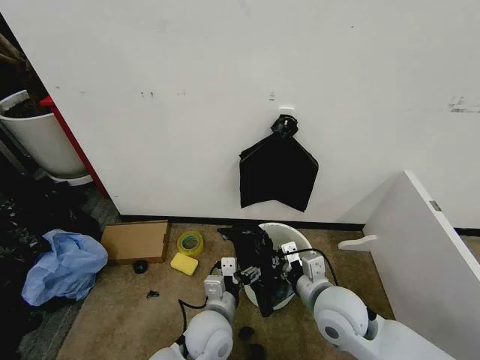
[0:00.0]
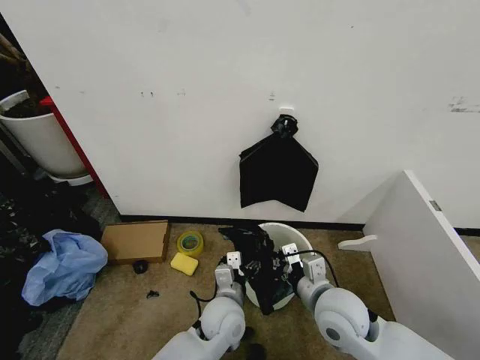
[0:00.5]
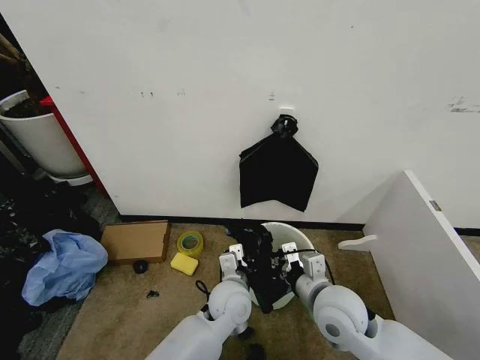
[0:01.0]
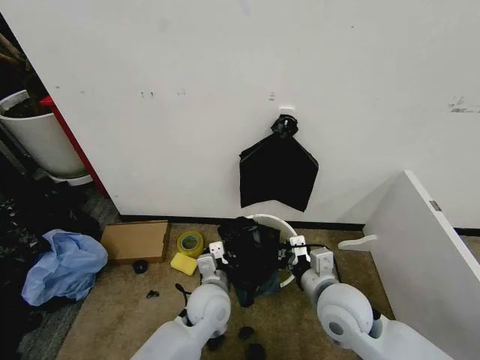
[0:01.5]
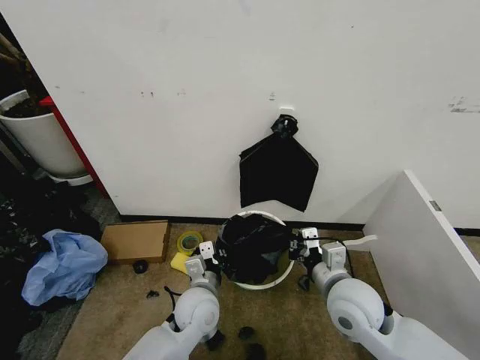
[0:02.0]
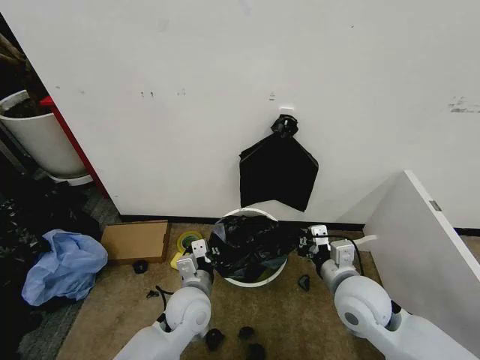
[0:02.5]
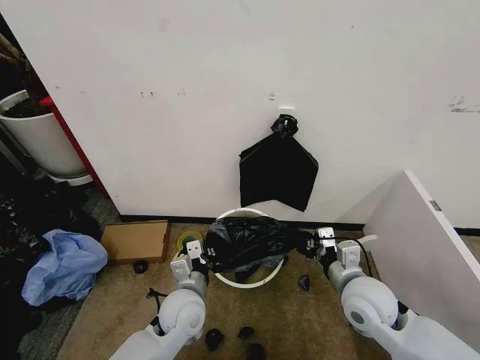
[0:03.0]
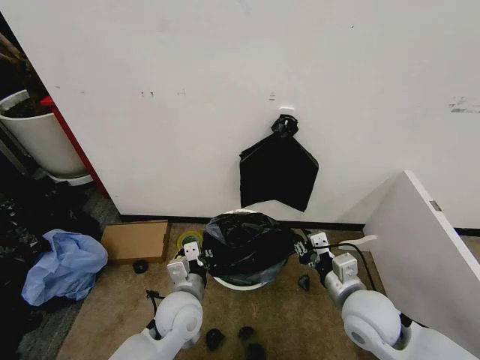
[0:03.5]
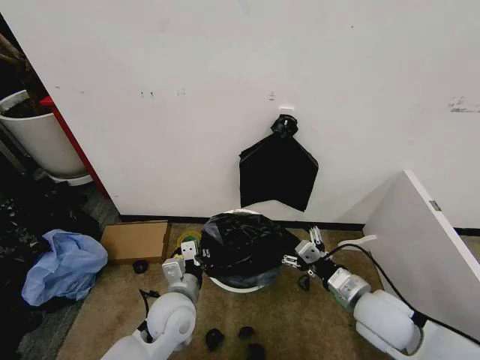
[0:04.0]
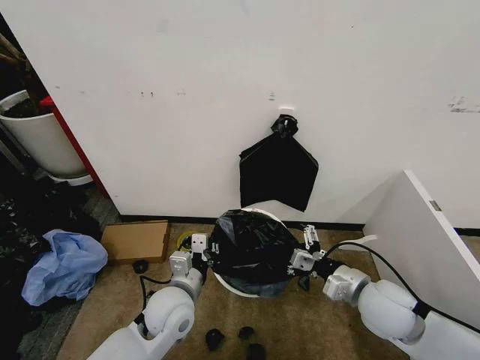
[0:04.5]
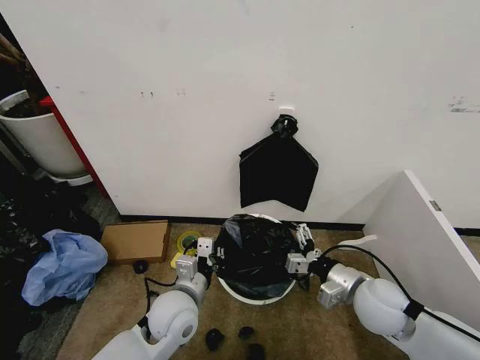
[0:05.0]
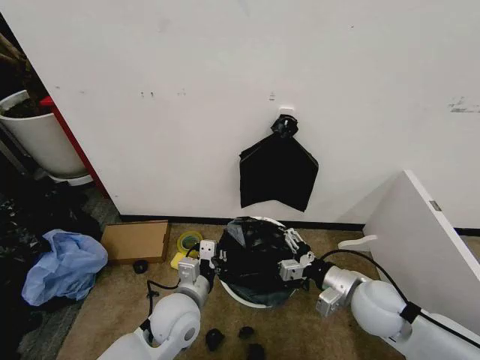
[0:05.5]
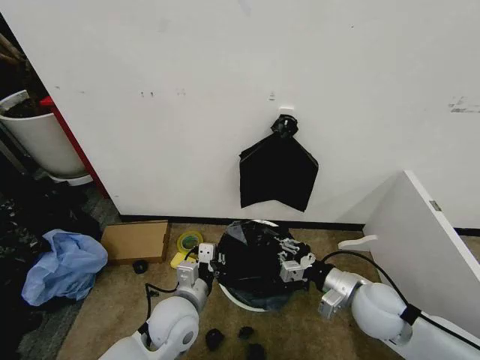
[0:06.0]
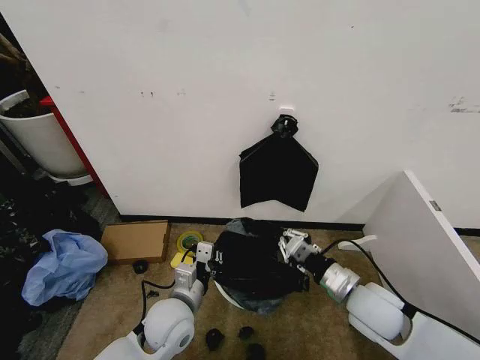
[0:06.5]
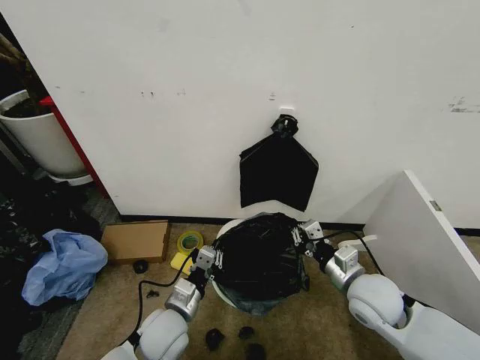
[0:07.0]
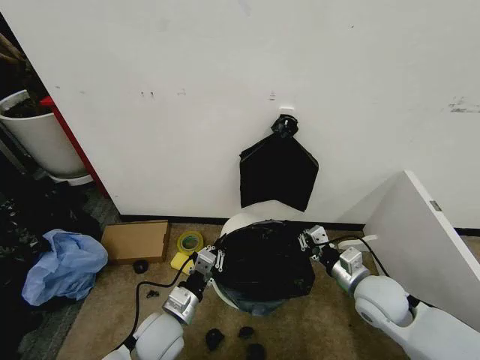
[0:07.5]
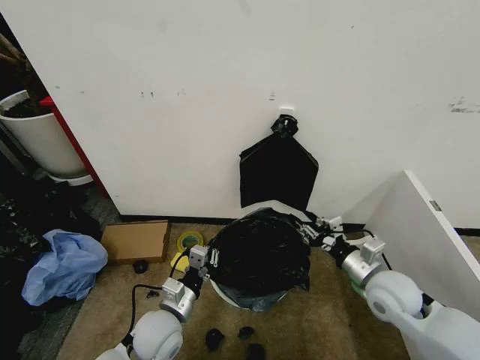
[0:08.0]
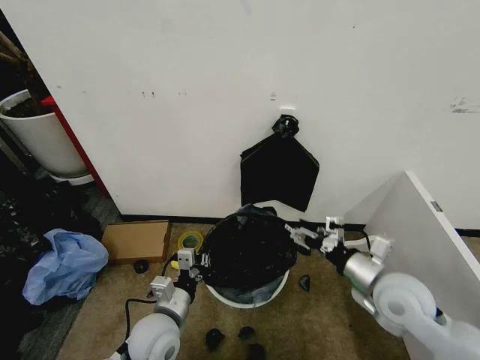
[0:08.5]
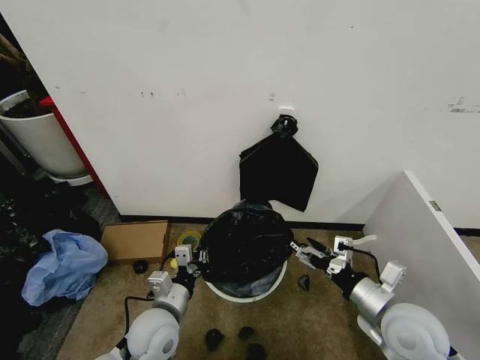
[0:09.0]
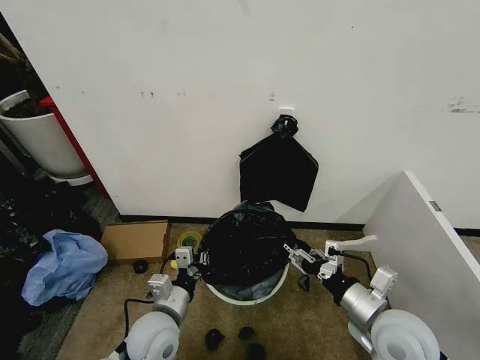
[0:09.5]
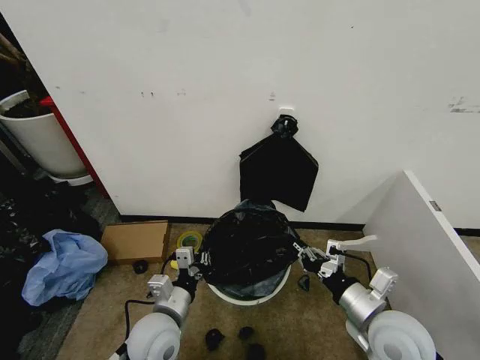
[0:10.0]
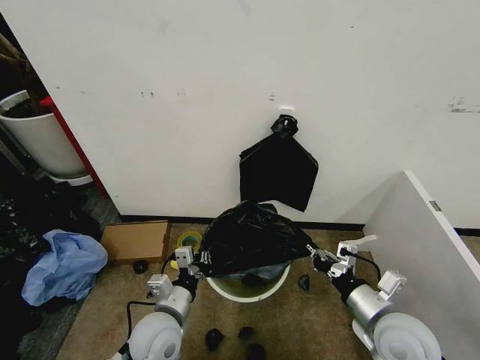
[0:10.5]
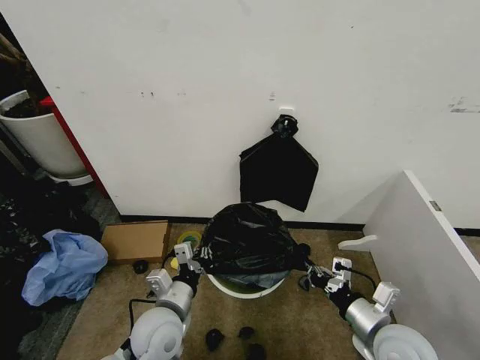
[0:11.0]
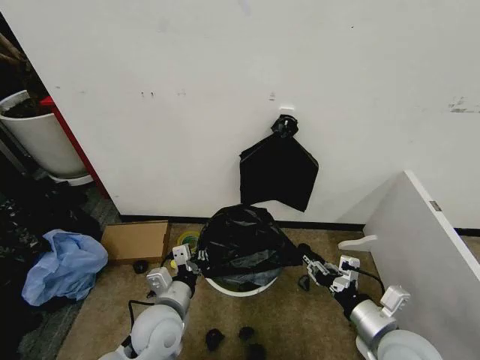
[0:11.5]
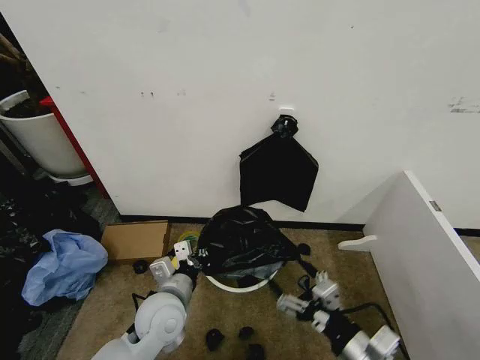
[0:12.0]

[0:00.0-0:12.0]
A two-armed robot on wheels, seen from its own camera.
Task of the whole recording: Place the garbage bag over the trash bin.
0:00.0 to 0:02.0: The left gripper moves approximately 5 cm, and closes its fingers.
0:02.0 to 0:04.0: The right gripper heads to the right, covering about 5 cm, and opens its fingers. The left gripper moves about 5 cm.
0:04.0 to 0:06.0: The right gripper closes up.
0:06.0 to 0:08.0: The left gripper changes place by some 5 cm.
0:08.0 to 0:10.0: The right gripper moves backward, about 10 cm, and closes up.
0:10.0 to 0:12.0: The right gripper goes about 10 cm backward, and opens its fingers.

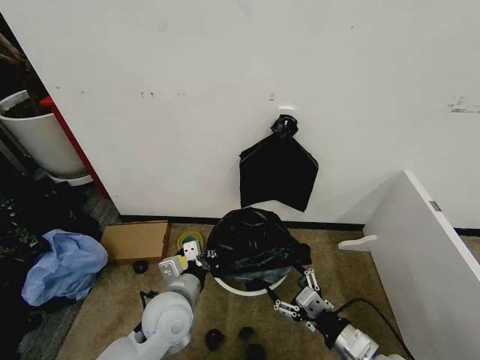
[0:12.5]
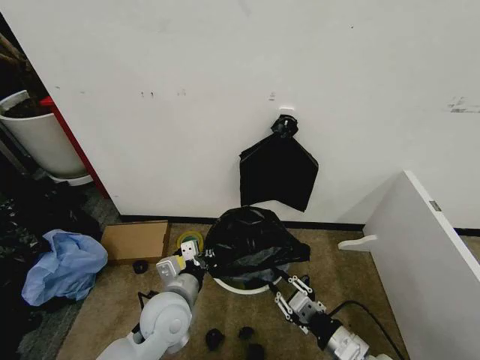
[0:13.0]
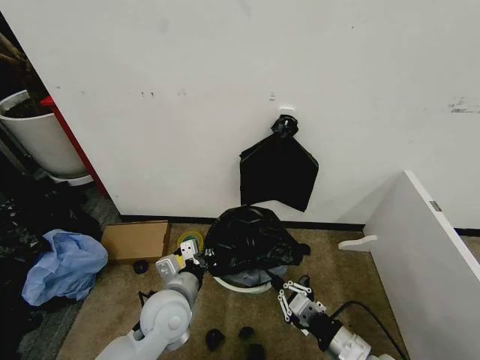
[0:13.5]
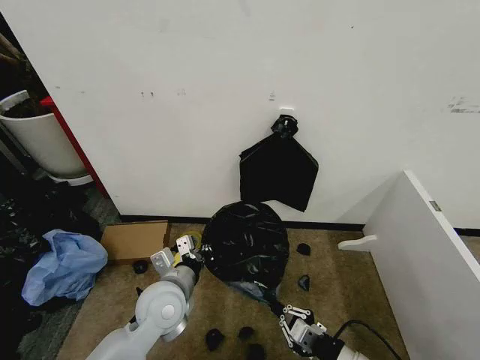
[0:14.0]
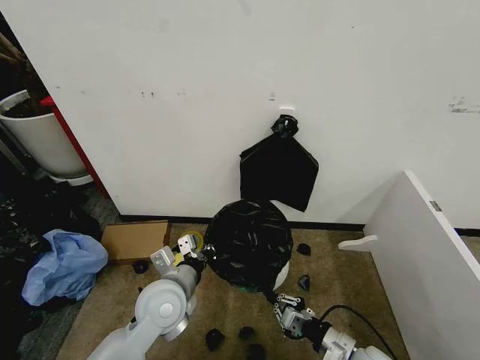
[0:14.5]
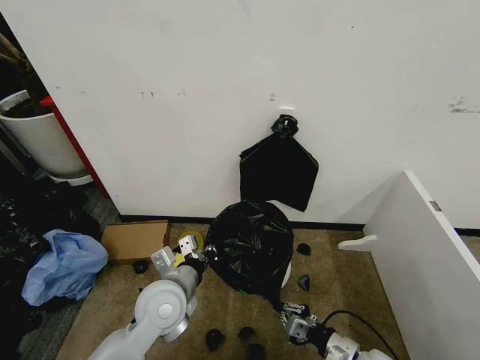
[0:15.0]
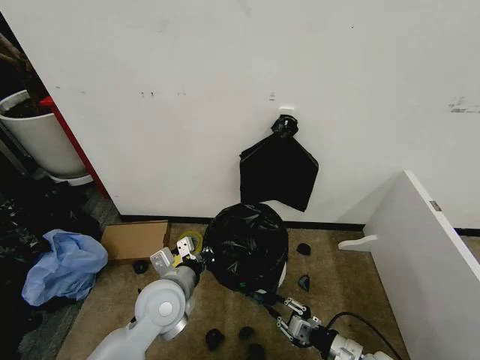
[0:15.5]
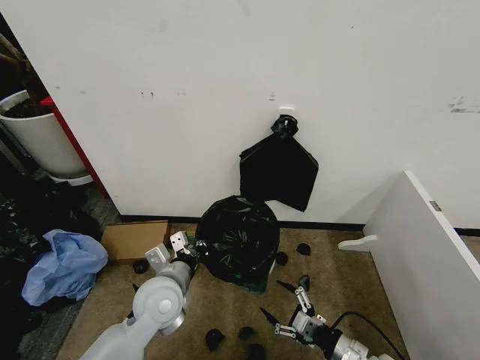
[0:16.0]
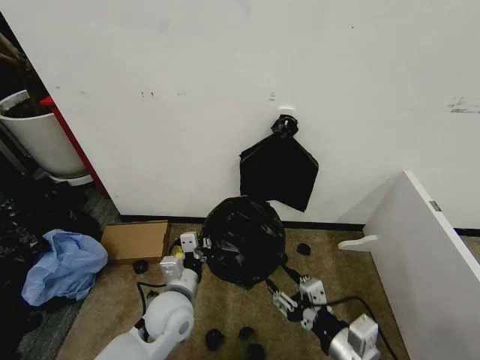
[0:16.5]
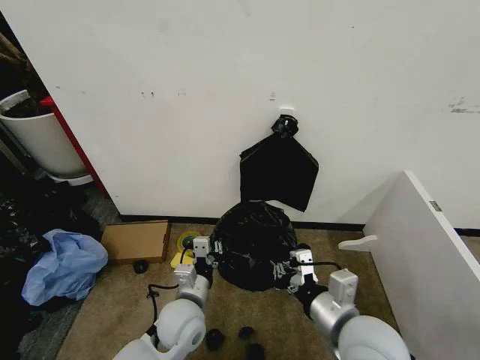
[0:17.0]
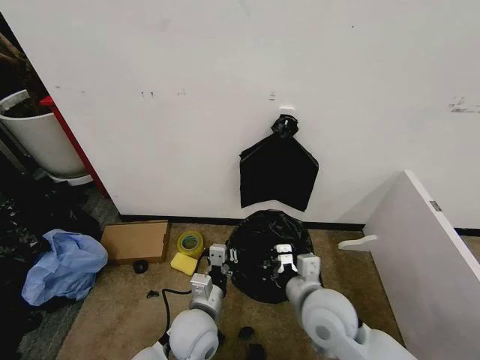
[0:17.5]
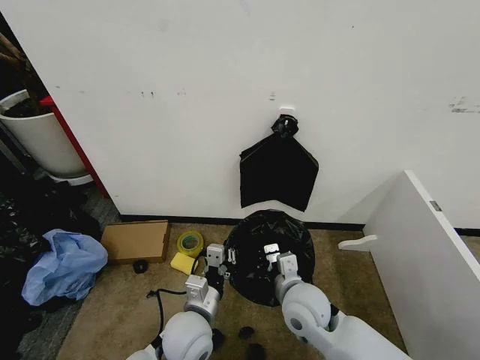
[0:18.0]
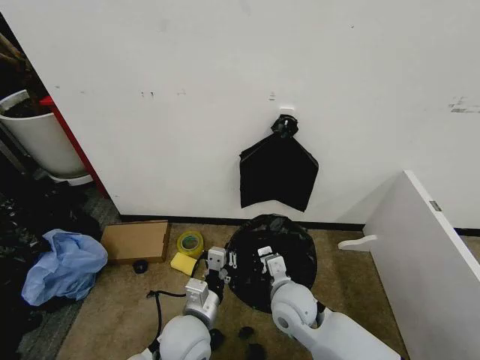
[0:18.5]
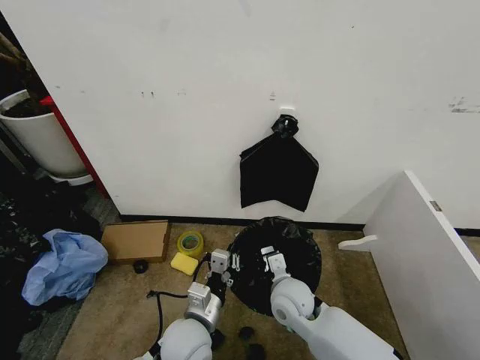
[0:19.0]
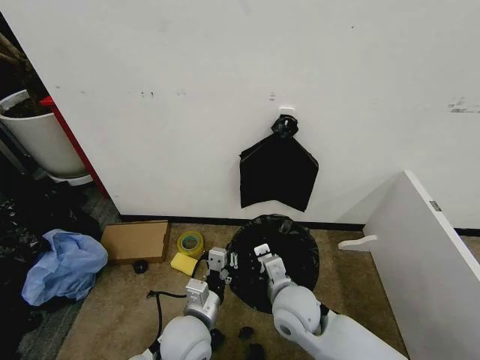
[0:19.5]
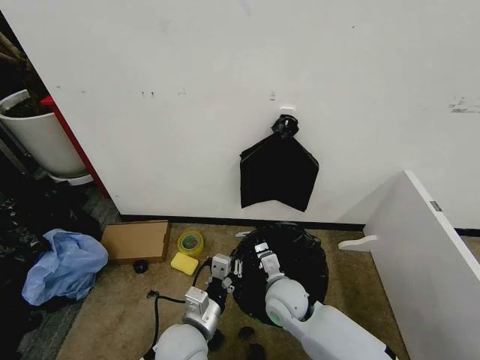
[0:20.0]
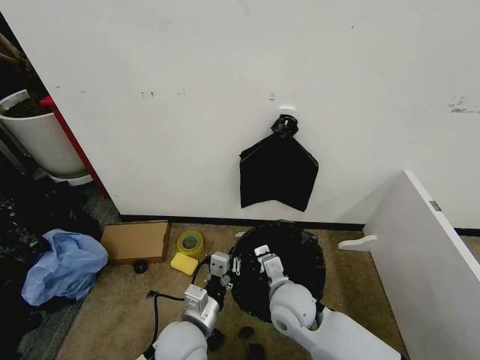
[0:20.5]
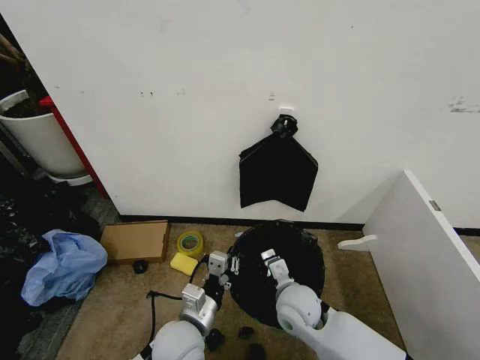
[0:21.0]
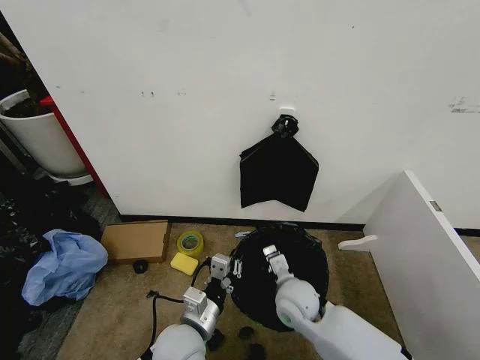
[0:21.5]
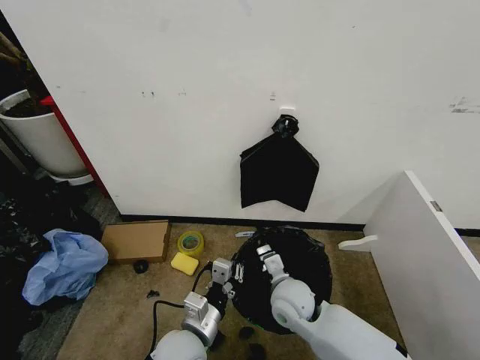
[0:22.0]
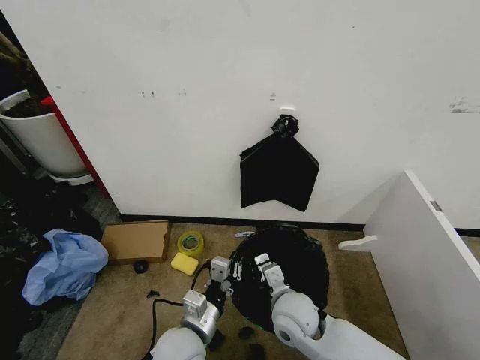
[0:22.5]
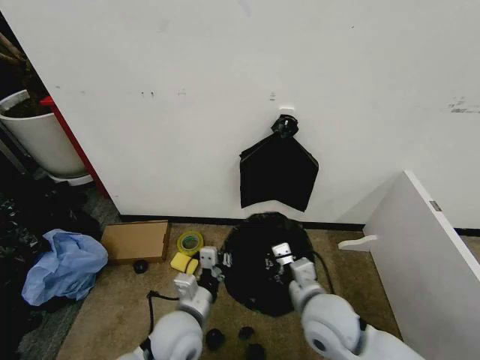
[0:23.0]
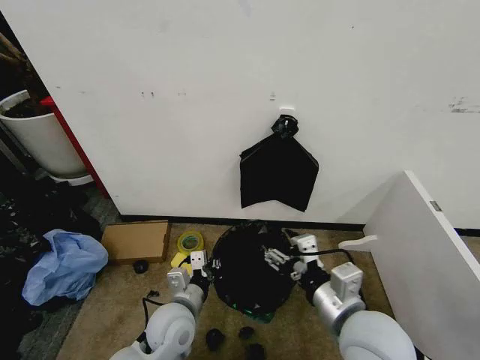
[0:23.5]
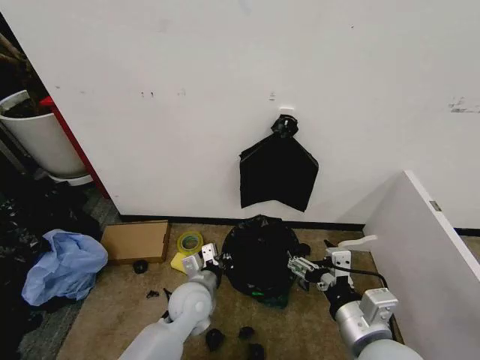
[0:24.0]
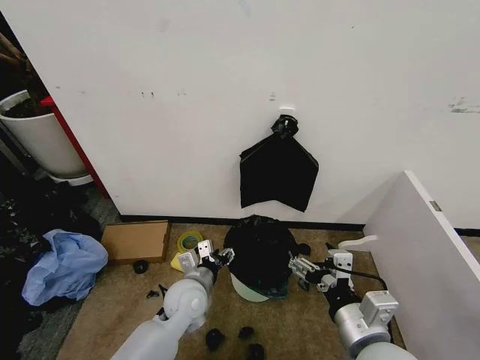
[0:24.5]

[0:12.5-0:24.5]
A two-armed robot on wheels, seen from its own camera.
Task of the whole recording: Place the garbage bag over the trash bin.
0:12.5 to 0:14.5: The right gripper shifts approximately 10 cm downward, and closes.
0:14.5 to 0:16.5: The left gripper heads downward, covering about 5 cm. The right gripper travels upward by approximately 15 cm, and opens.
0:16.5 to 0:18.5: The left gripper moves approximately 5 cm. The right gripper heads forward, to the left and downward, covering some 20 cm, and closes.
0:18.5 to 0:22.5: The grippers make only small movements.
0:22.5 to 0:24.5: The right gripper shifts roughly 20 cm backward, upward and to the right, and opens; the left gripper is displaced forward by some 10 cm, and opens.

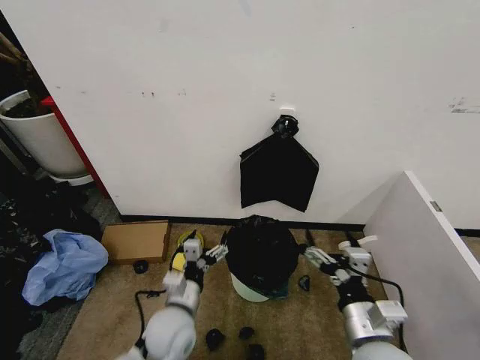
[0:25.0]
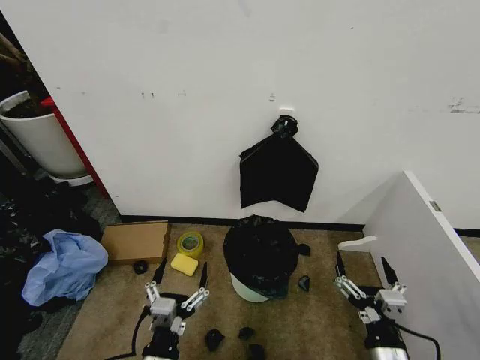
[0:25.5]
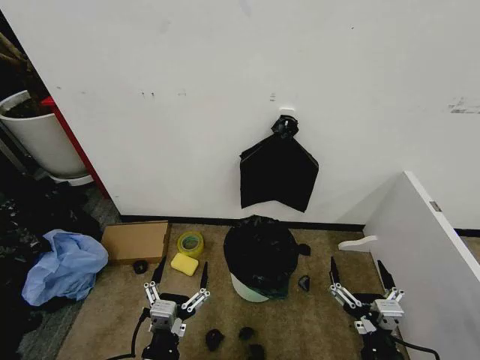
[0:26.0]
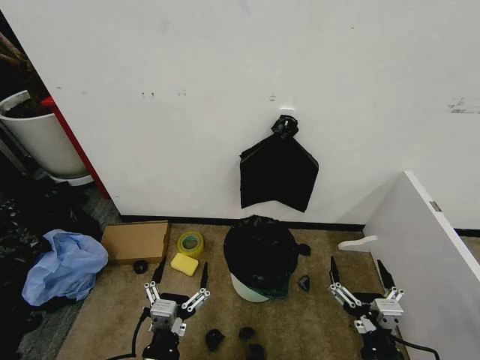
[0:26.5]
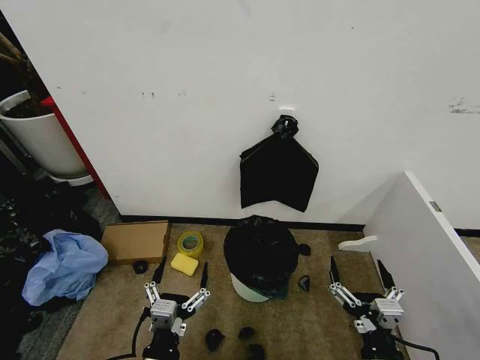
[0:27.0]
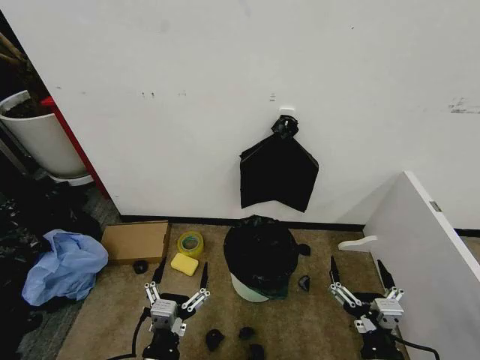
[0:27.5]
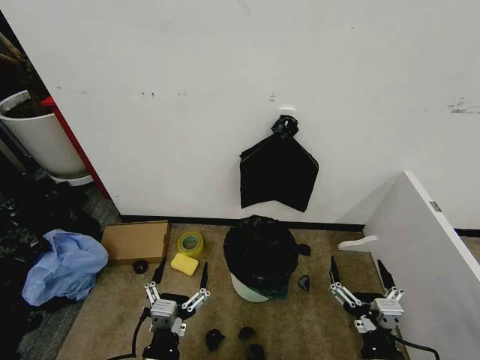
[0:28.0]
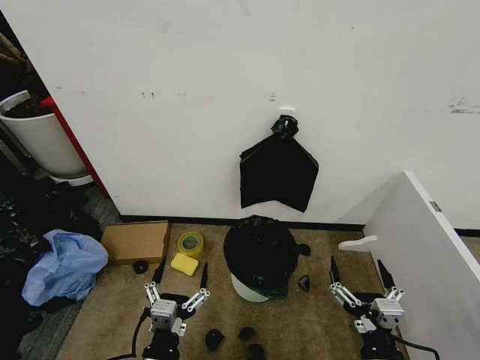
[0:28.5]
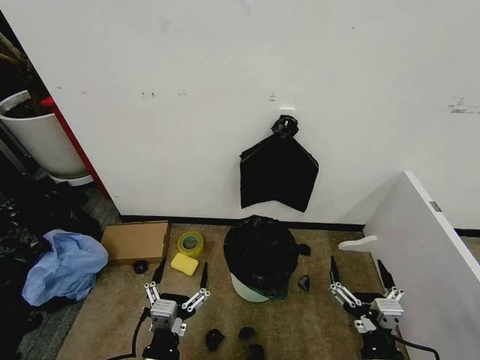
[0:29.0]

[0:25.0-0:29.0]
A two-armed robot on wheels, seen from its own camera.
Task of the whole recording: Place the garbage bag over the trash bin.
0:25.0 to 0:27.0: The left gripper shifts about 15 cm backward, while the right gripper is displaced backward and downward by approximately 10 cm.
0:27.0 to 0:29.0: The two grippers keep their place.
